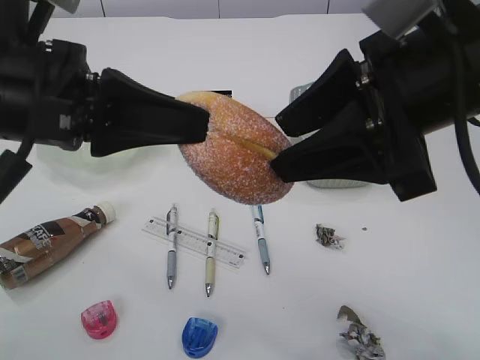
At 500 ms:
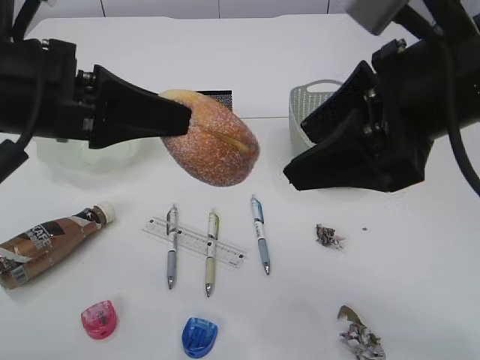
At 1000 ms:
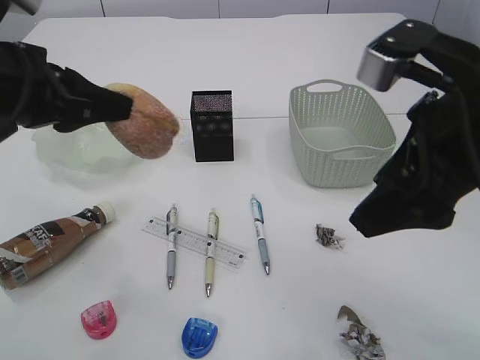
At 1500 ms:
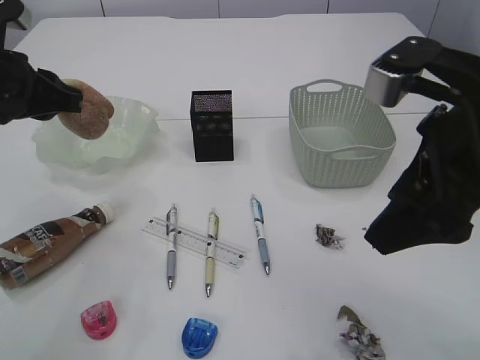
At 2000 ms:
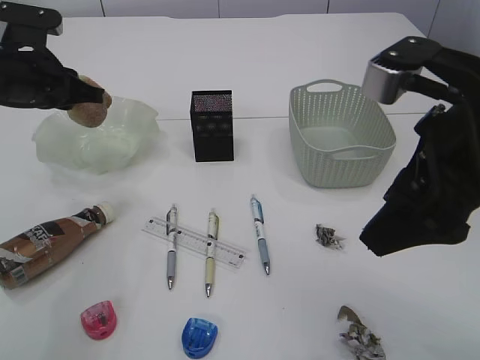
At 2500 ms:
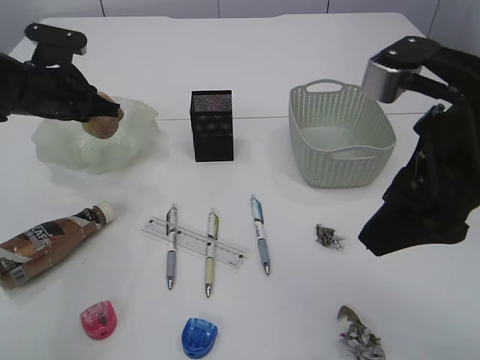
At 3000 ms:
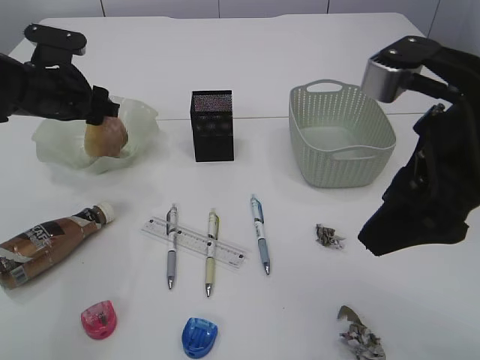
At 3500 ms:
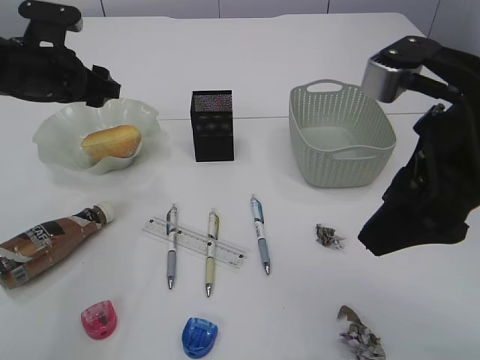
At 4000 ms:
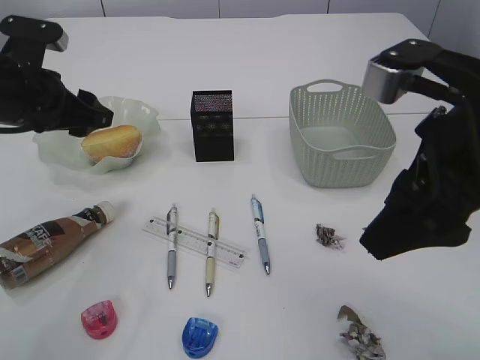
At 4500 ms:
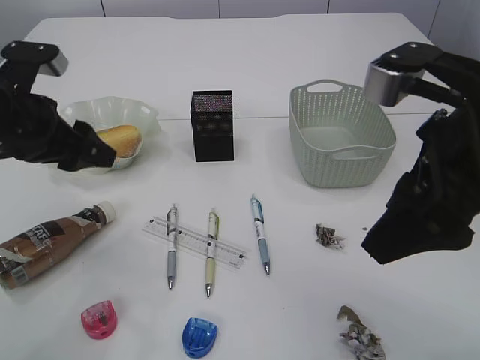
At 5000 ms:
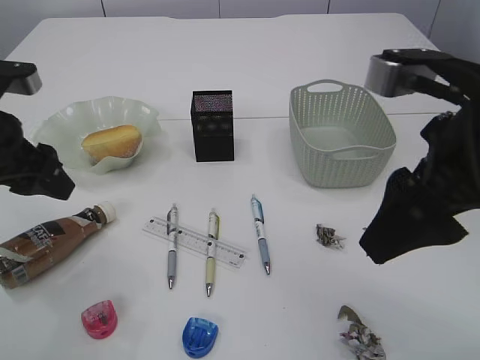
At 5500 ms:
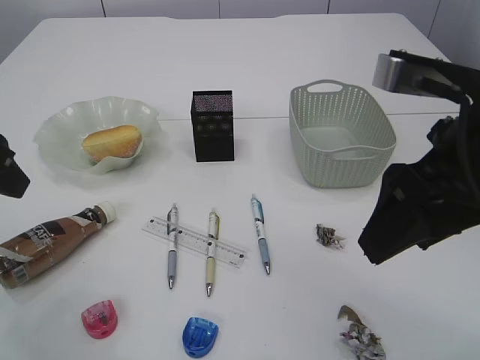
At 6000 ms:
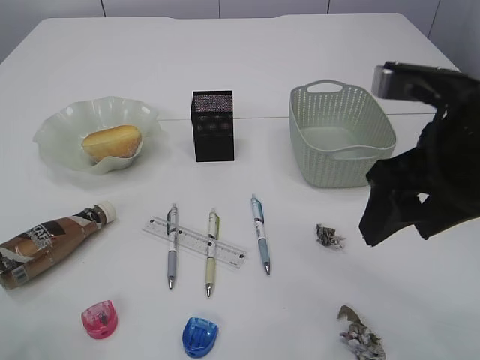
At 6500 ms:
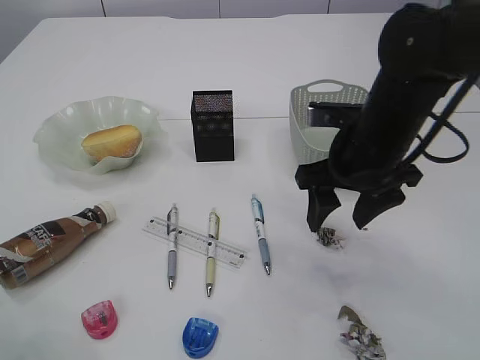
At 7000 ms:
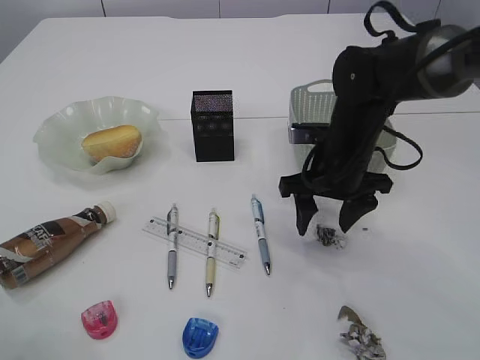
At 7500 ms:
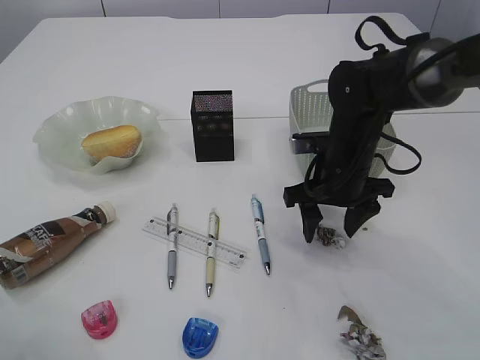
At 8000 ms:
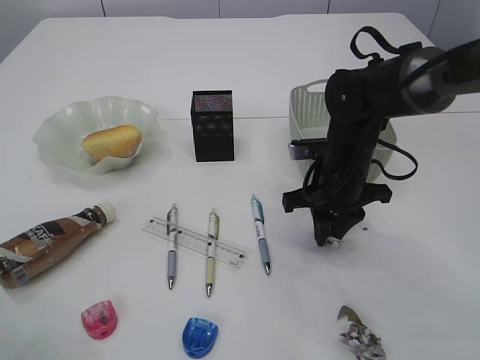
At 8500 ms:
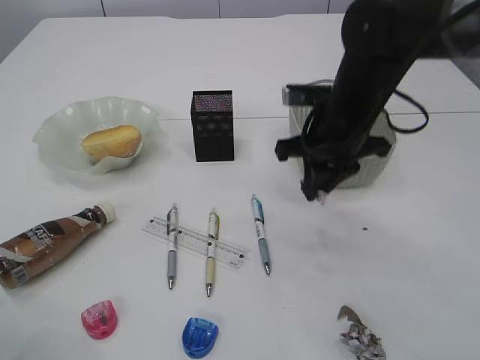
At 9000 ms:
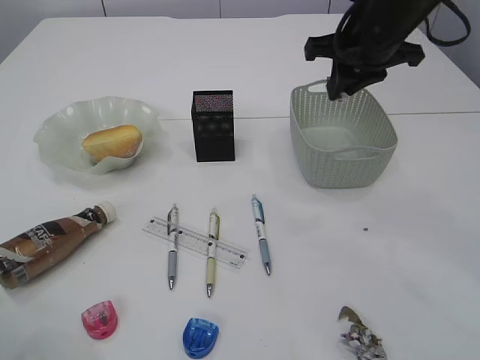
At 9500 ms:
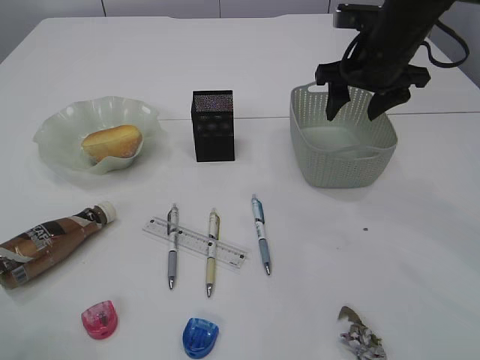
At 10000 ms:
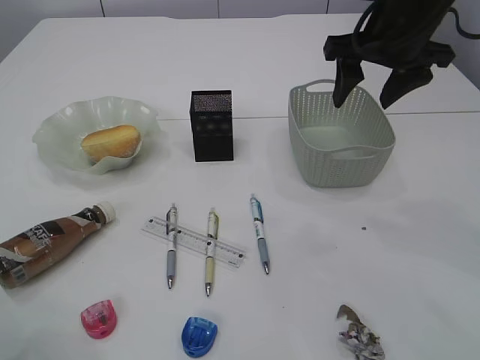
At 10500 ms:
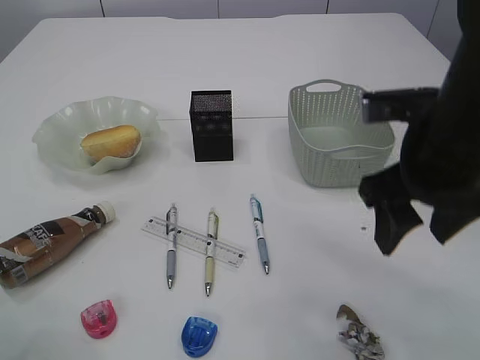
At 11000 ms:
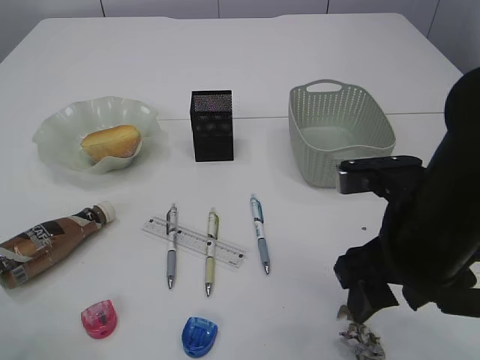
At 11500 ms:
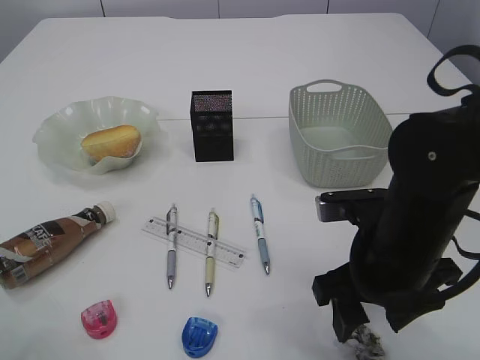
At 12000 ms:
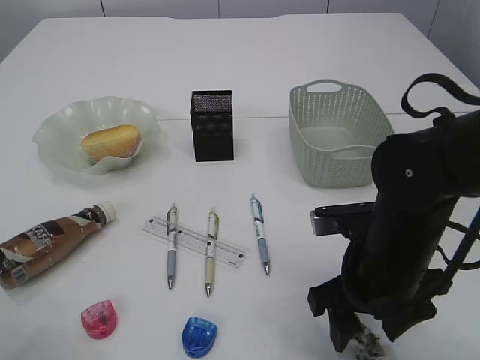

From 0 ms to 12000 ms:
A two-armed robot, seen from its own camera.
Step, from 1500 ms to 8000 ms: Pick up the waste paper.
Step, from 8500 ms to 9000 ms: Place the waste paper in the basket.
From 0 ms to 2000 ms: The left gripper shifts about 20 cm forward, to the left and downward.
From 2000 ms to 4000 ms: The left gripper opens up.
From 4000 ms to 6000 ms: The left gripper travels backward by approximately 15 cm.
From 6000 ms to 8000 ms: The right gripper goes roughly 20 cm downward and forward, and closes its fingers.
From 8000 ms to 10000 ms: The right gripper is displaced upward by some 20 cm, and opens up.
From 10000 ms to 12000 ms: The right gripper moves downward and backward, roughly 25 cm.

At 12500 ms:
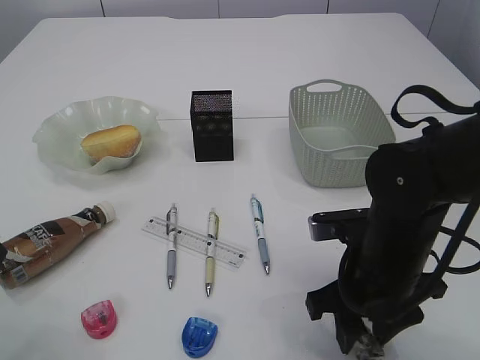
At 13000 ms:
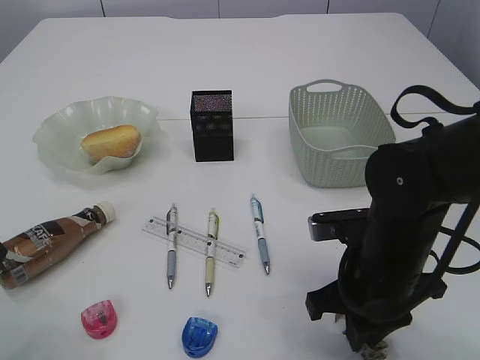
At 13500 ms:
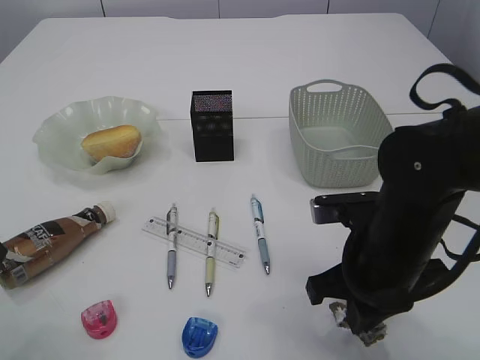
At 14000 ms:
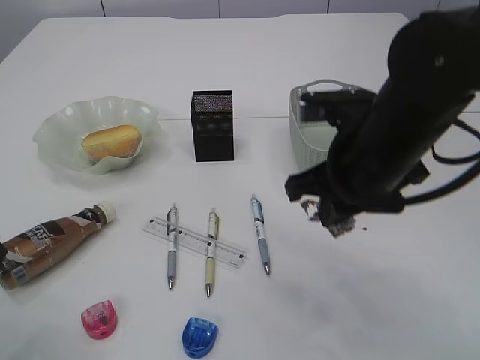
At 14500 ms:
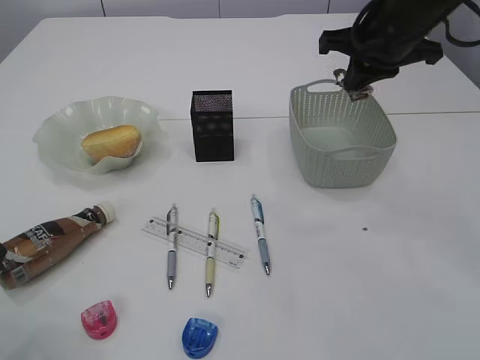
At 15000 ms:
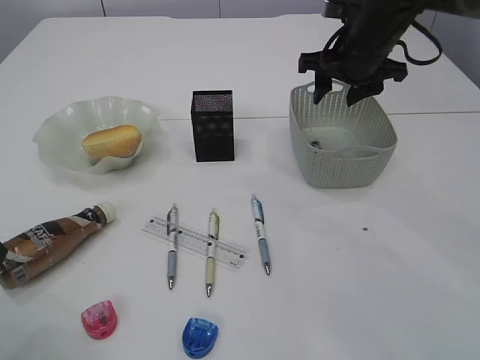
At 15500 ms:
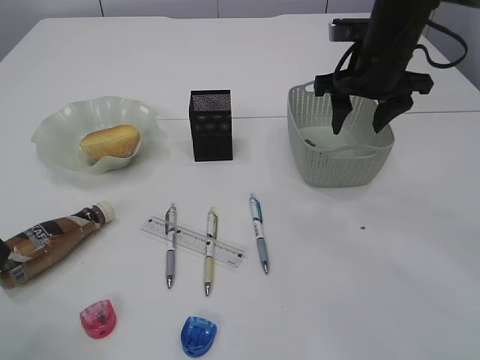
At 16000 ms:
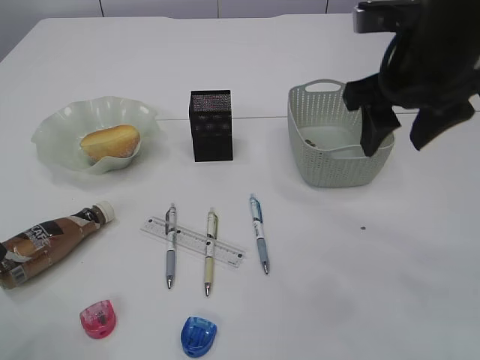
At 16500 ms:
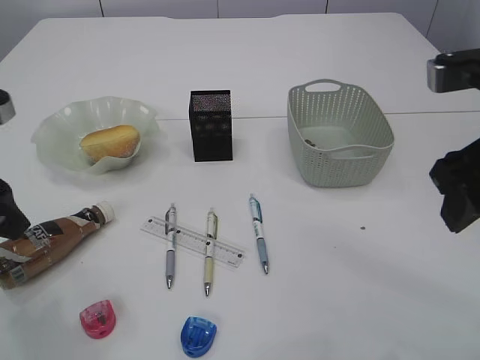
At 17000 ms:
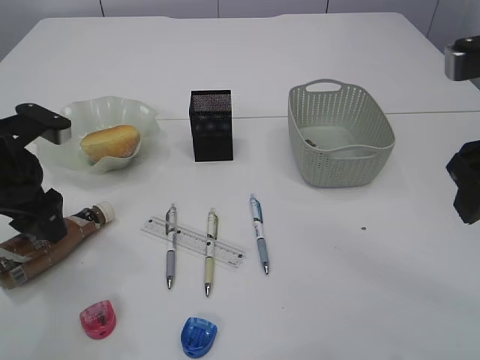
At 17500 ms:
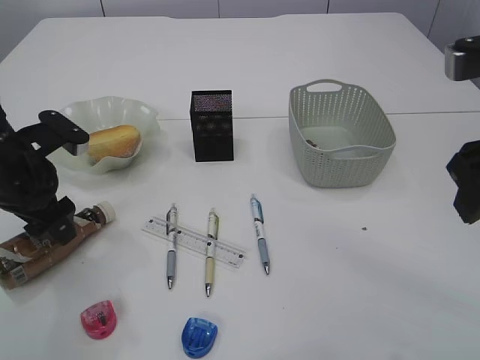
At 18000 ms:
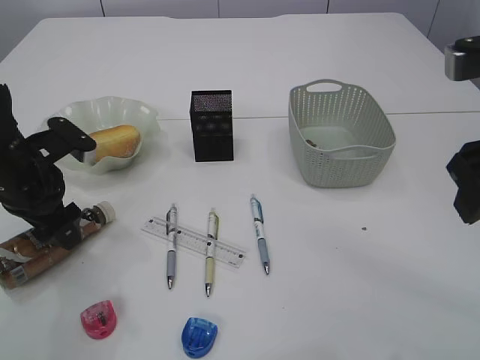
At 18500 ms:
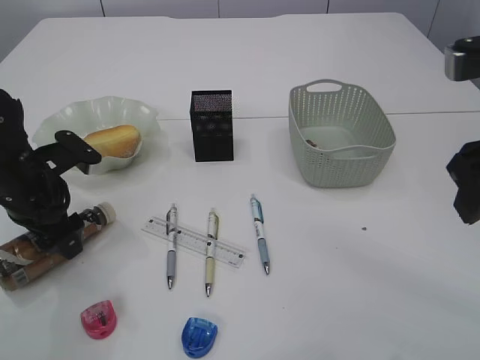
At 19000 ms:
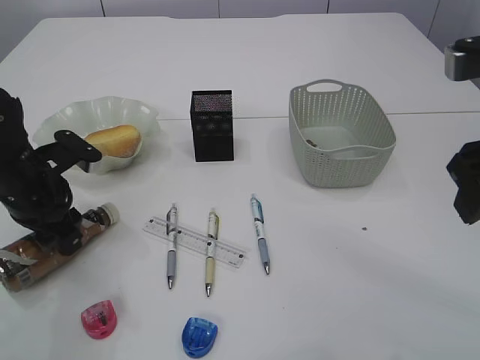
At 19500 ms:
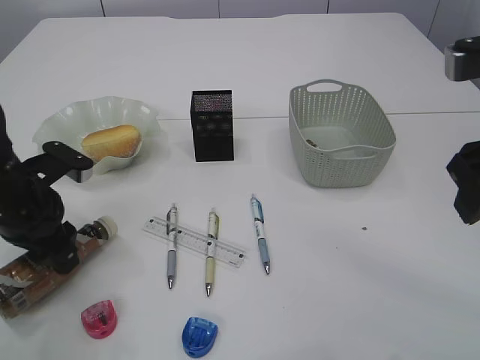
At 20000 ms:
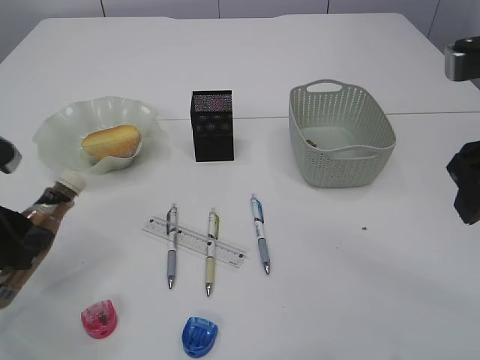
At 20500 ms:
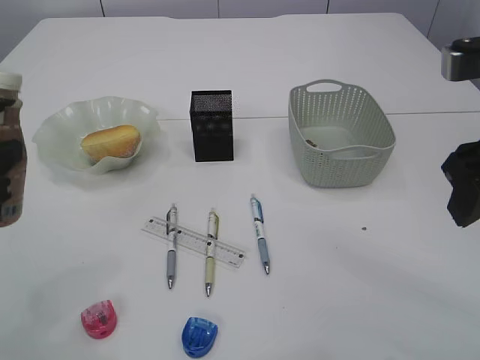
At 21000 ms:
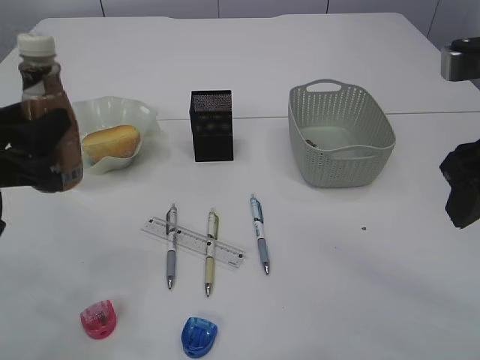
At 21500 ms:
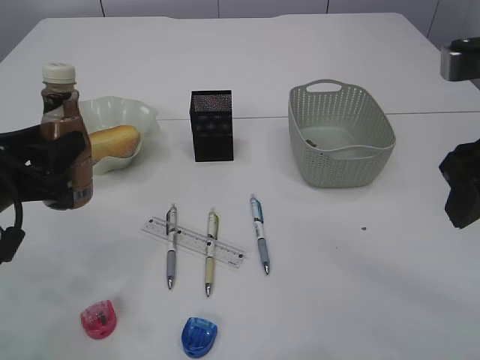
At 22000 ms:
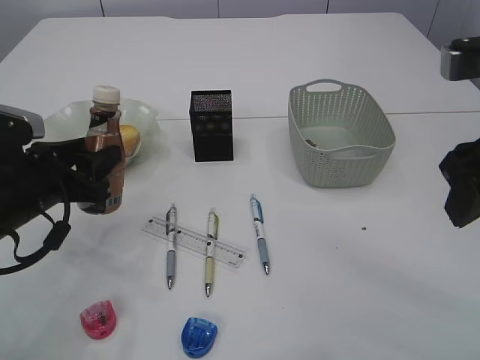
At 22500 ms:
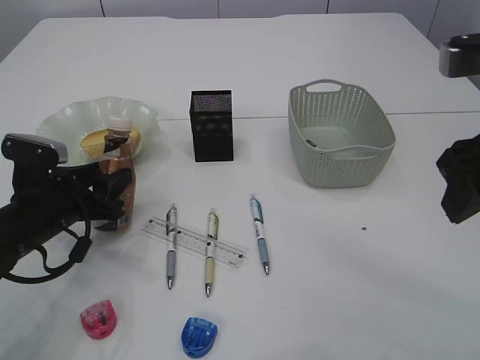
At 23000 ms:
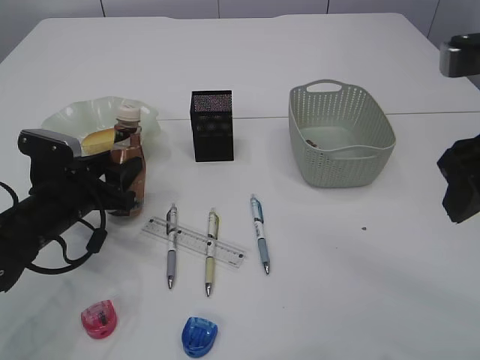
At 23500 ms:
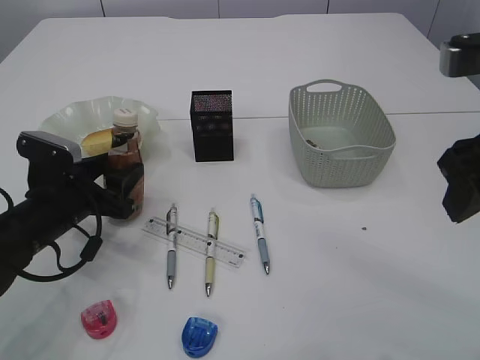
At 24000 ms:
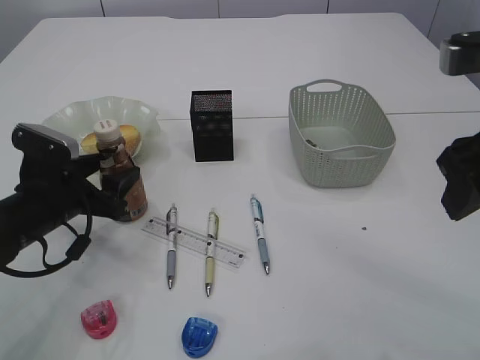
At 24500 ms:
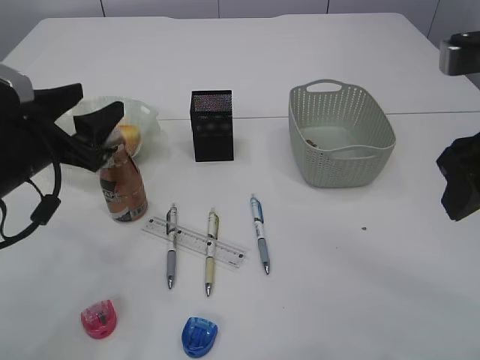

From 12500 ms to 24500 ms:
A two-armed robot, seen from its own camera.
Step, from 14500 ms to 15000 ms: Place the waste paper in the basket.
Step, from 15500 ms to 20000 ms: Pick up the bottle with the left arm.
From 12500 ms to 14500 ms: The right gripper is displaced upward and forward by approximately 25 cm, and closes its fingers.
From 14500 ms to 16500 ms: The right gripper moves backward, roughly 20 cm, and opens.
From 16500 ms to 18500 ms: The left gripper travels downward and forward by some 15 cm.
From 18500 ms to 20500 ms: The left gripper shifts some 15 cm backward and upward, and closes up.
From 20500 ms to 22500 ms: The left gripper goes approximately 15 cm downward and forward.
From 22500 ms to 24500 ms: The left gripper is displaced upward by roughly 10 cm.

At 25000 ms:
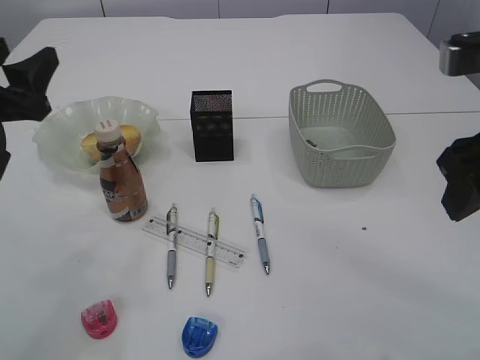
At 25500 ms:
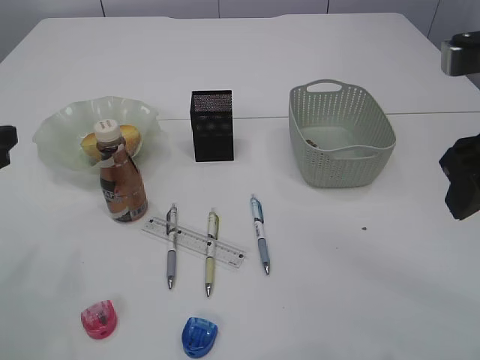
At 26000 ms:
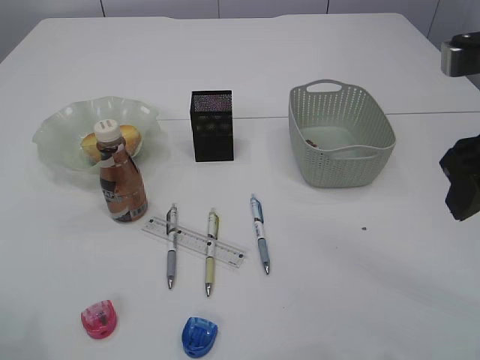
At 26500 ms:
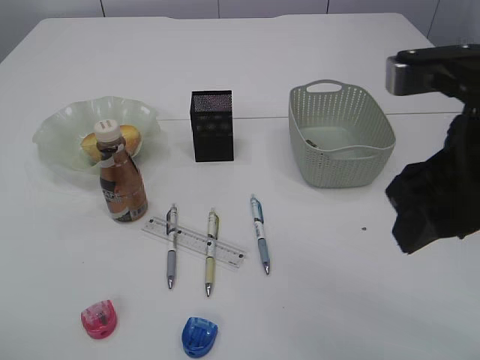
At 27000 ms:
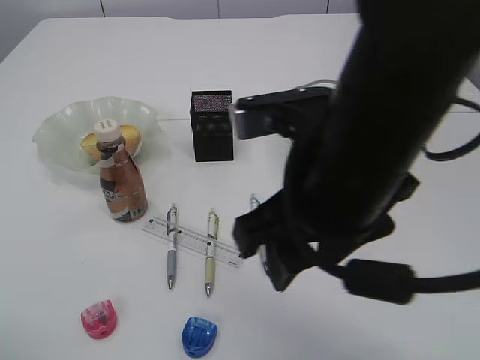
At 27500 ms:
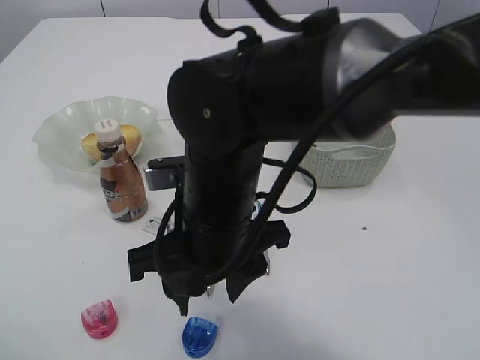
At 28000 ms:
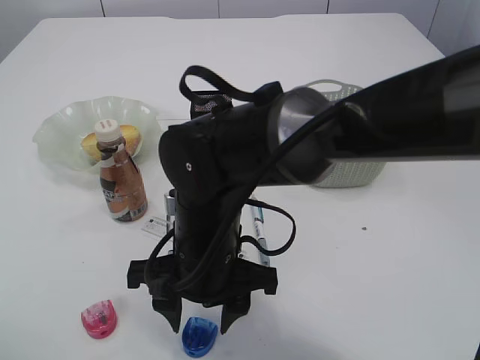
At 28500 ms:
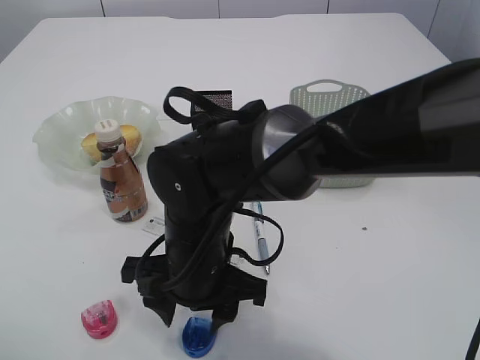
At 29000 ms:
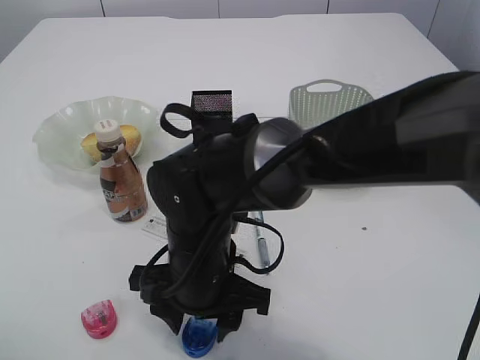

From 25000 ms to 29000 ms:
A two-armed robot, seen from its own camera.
From 25000 ms to 27000 ms: The right gripper heads to the left, covering roughly 15 cm. The left gripper goes about 15 cm backward and upward.
From 27000 ms to 29000 ms: The right gripper is displaced downward and to the left by about 20 cm.
